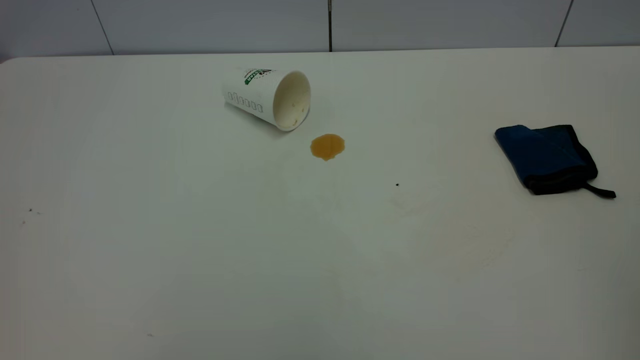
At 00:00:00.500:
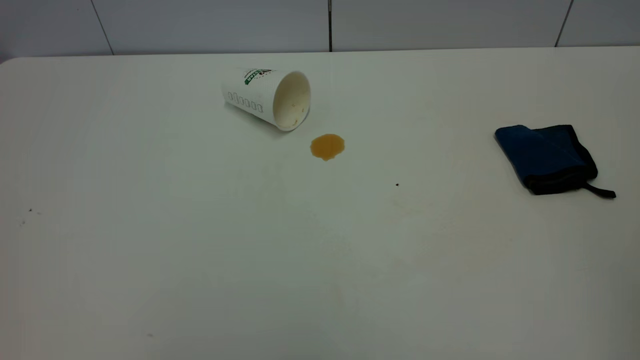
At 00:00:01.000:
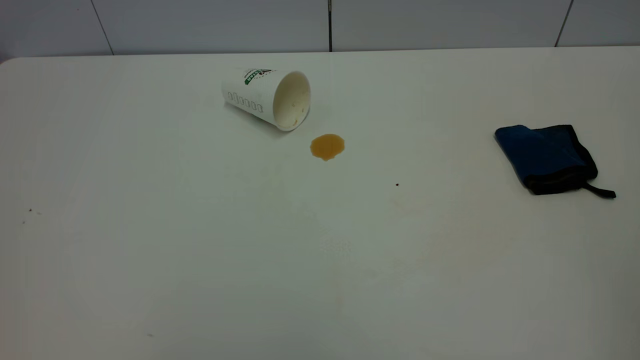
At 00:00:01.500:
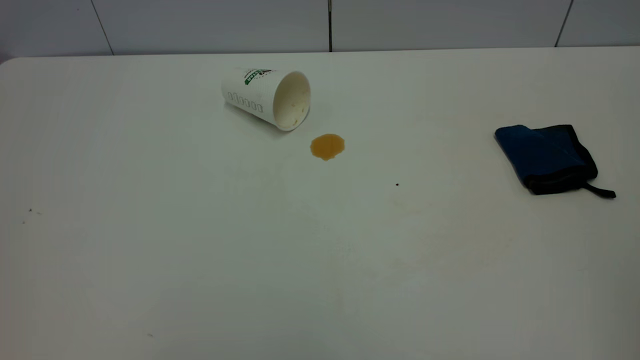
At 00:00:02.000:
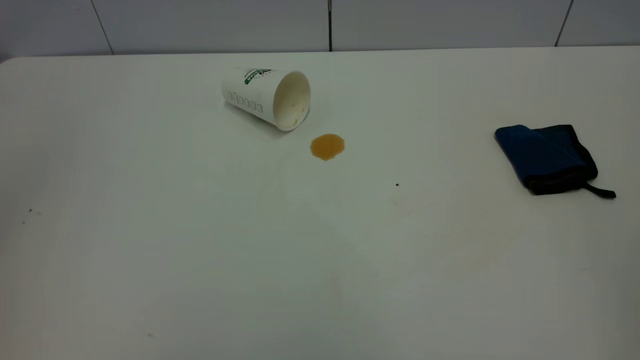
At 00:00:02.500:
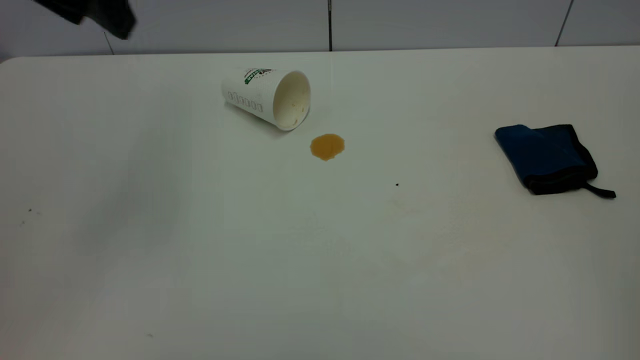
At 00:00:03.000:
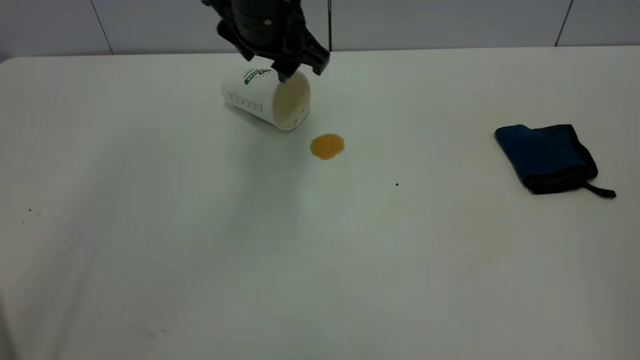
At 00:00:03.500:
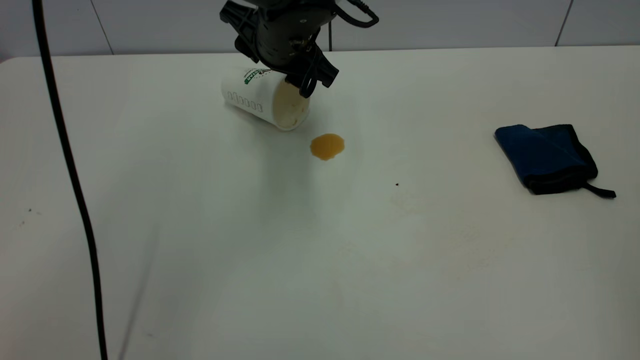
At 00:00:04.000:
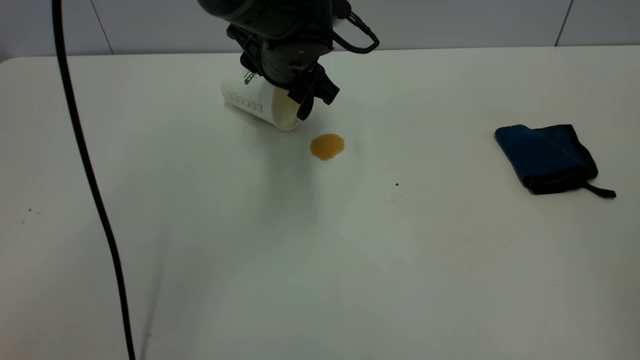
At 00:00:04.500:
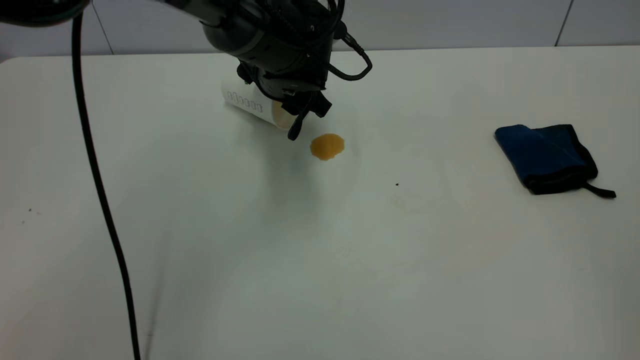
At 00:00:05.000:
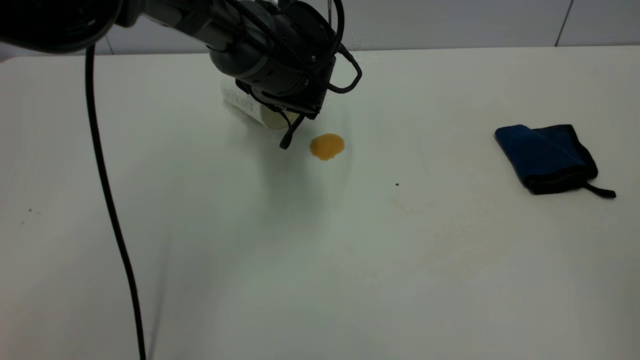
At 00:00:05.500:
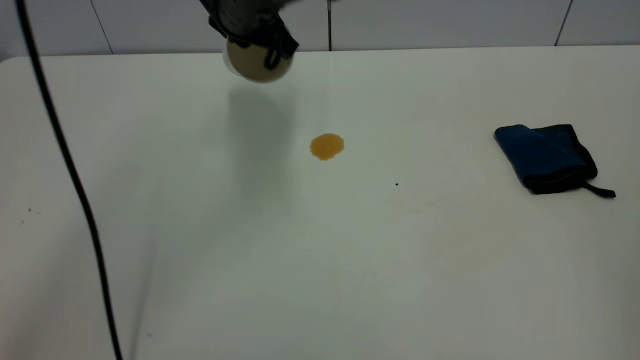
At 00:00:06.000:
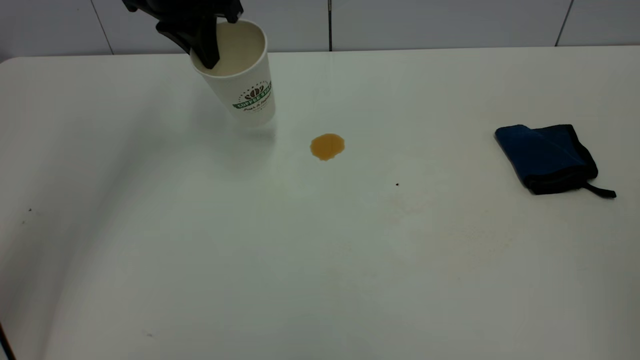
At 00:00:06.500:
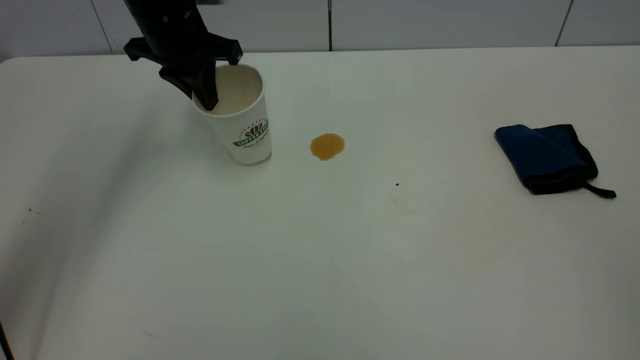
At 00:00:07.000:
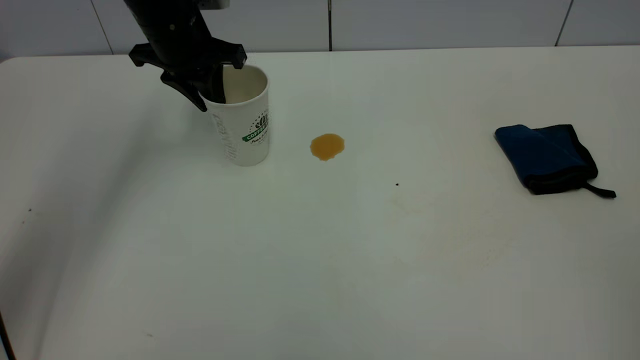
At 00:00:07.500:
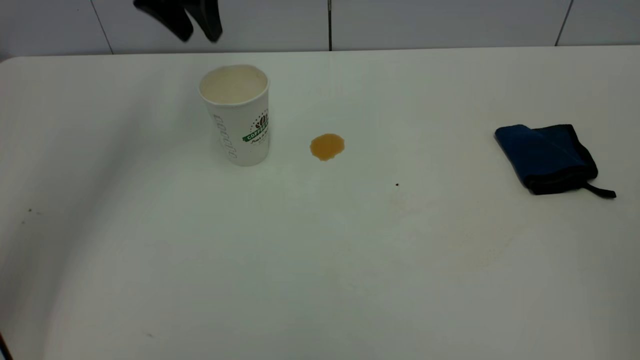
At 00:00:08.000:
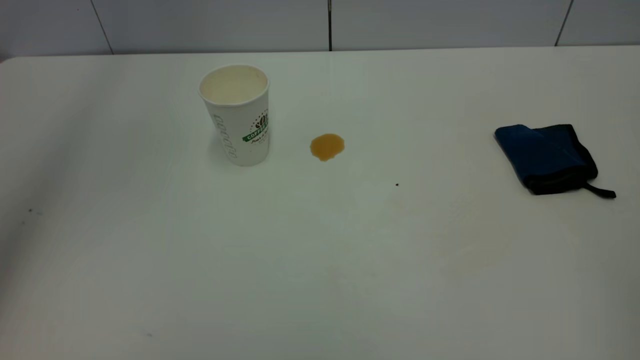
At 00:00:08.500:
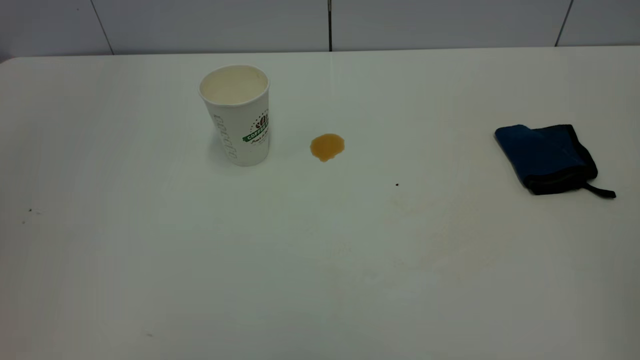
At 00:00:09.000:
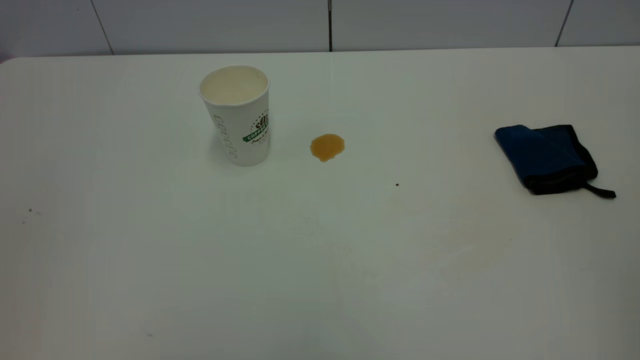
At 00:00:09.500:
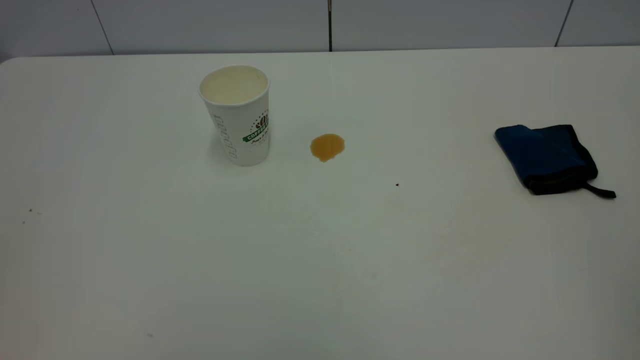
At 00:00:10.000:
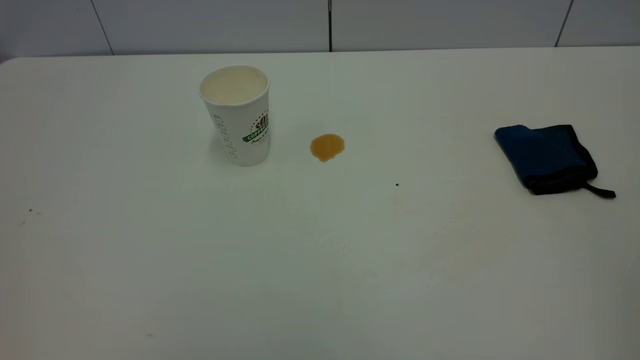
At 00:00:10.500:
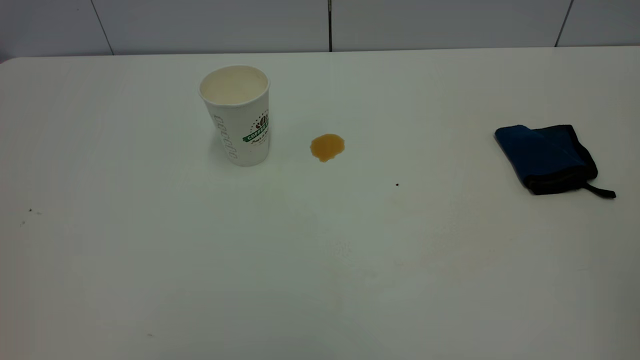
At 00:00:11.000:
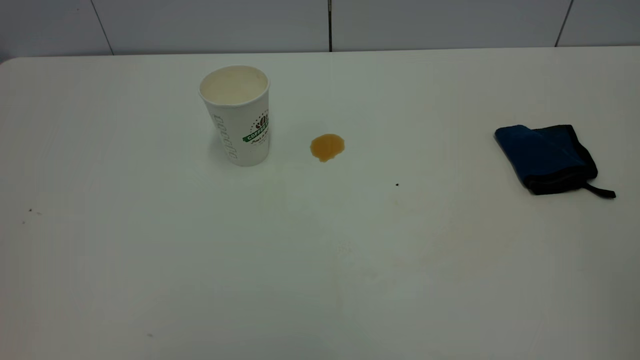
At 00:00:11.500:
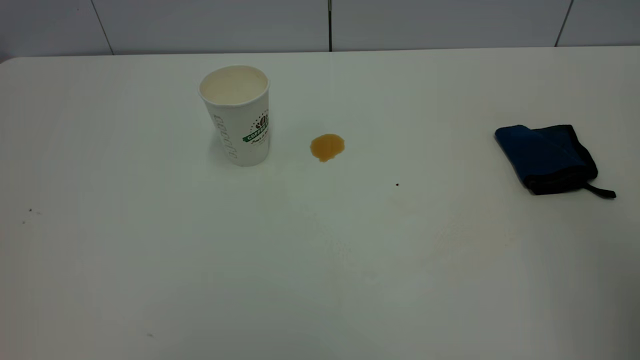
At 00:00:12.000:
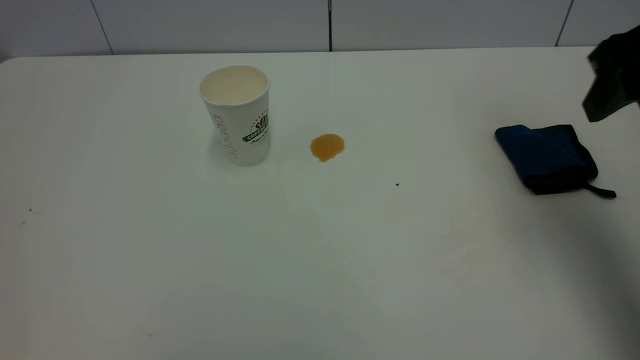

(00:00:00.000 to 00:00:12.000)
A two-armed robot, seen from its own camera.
Task of the whole recording: the left gripper pick up the fallen cup and place it upright, the right gripper grasp the blue rag and wipe the tea stain on the table, the right gripper put the blue rag back in its original position.
Step, 00:00:00.000 - 00:00:07.000: Stand the paper cup upright.
00:00:02.000 - 00:00:04.000: The left gripper shifts approximately 50 cm forward, to the right and downward.
00:00:04.000 - 00:00:06.000: The left gripper heads to the left and upward, covering roughly 15 cm, and closes up.
00:00:06.000 - 00:00:08.000: The left gripper goes some 30 cm upward and backward, and opens its fingers.
00:00:08.000 - 00:00:10.000: The left gripper goes some 35 cm backward.
00:00:10.000 - 00:00:12.000: The right gripper moves forward, approximately 30 cm, and opens.

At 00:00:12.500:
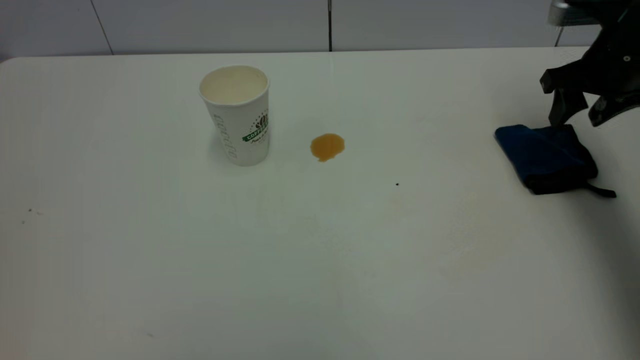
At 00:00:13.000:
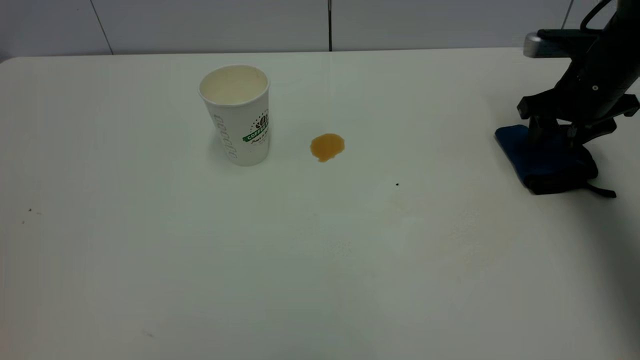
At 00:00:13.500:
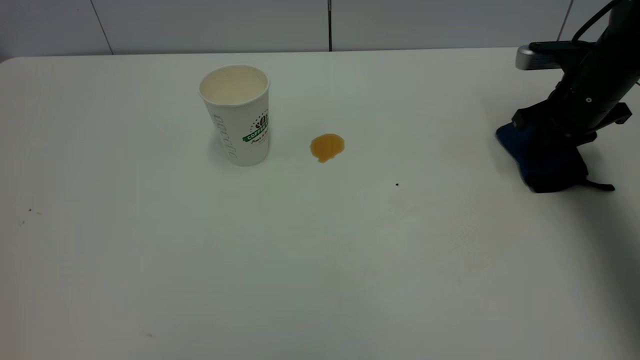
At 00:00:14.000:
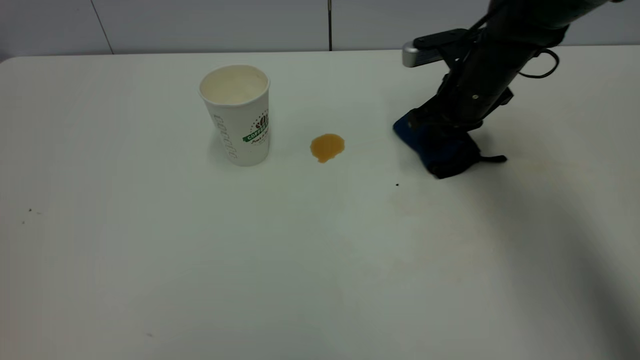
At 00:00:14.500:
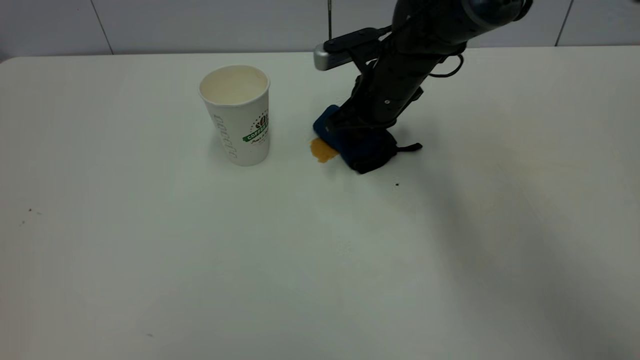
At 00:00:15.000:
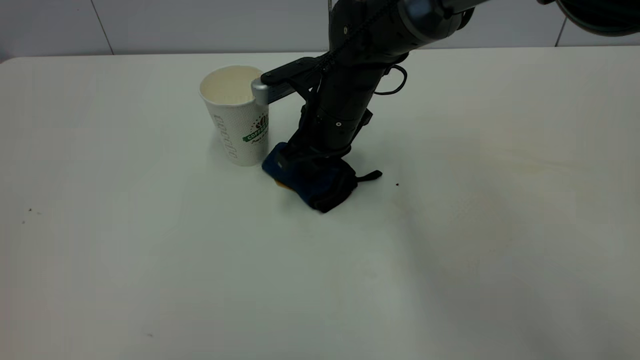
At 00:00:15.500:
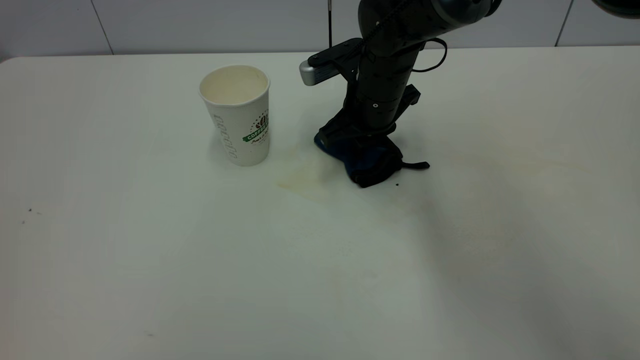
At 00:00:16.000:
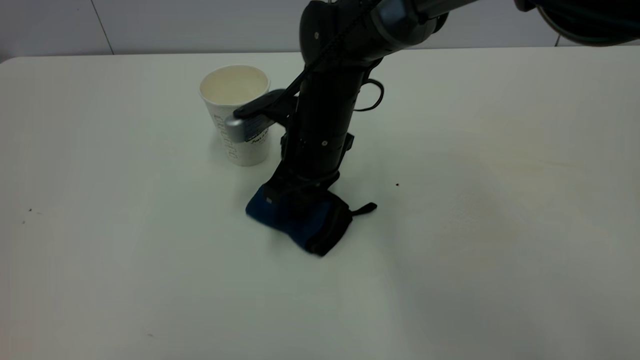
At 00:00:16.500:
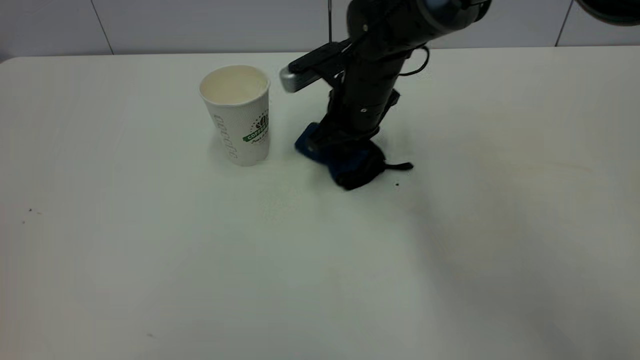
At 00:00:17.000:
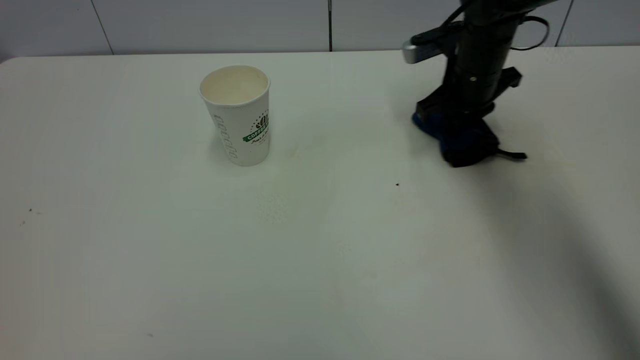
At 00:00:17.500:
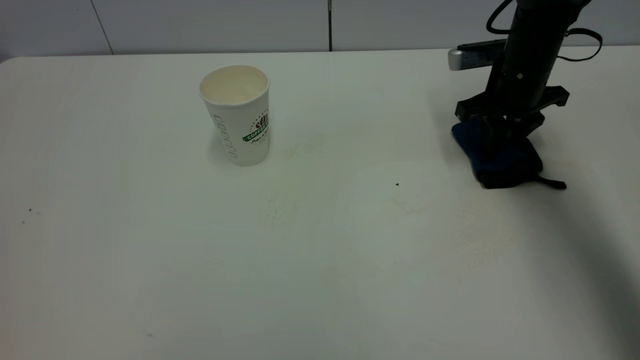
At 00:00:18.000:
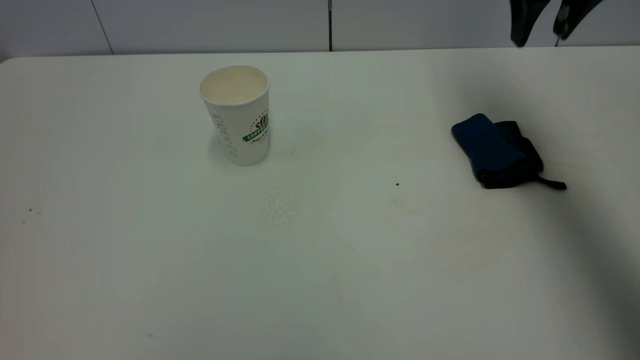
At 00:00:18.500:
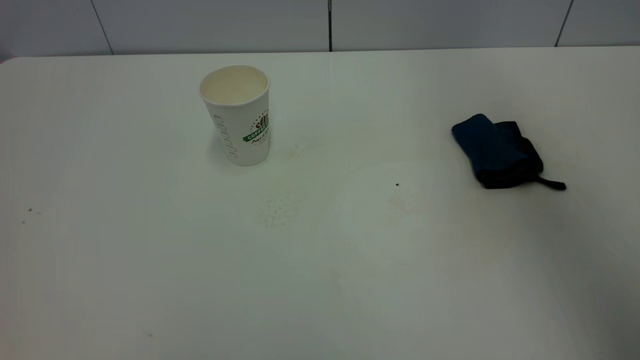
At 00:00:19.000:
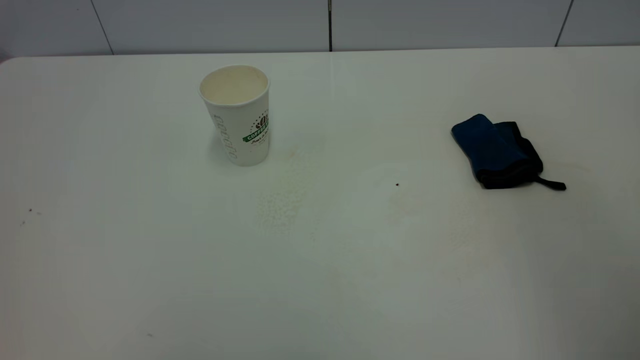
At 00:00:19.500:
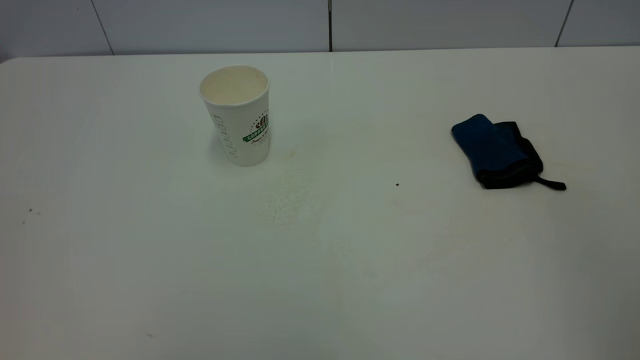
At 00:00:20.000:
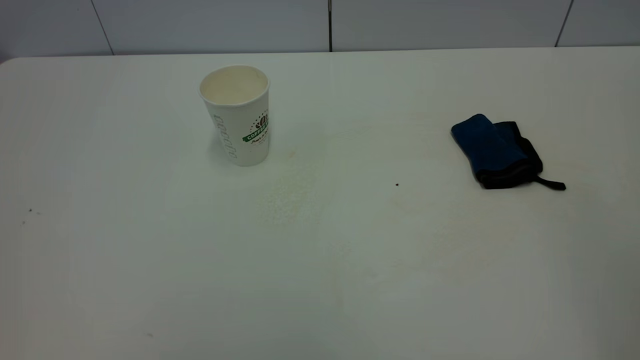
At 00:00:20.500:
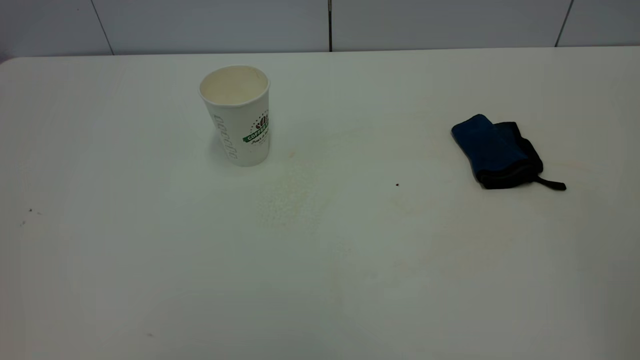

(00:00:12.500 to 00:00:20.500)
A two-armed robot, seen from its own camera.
Task of the whole recording: the left gripper pick up the fallen cup and place it upright, the right gripper grasp the blue rag and wipe the tea stain on the table, the right gripper put the blue rag back in its original position.
Step, 00:00:12.500 - 00:00:17.500: Wipe the stains off the table with a rag.
00:00:12.500 - 00:00:14.500: The right gripper heads to the left, covering about 25 cm, and closes up.
00:00:14.500 - 00:00:16.500: The right gripper swings left and right, about 10 cm each way, with 3 reversals.
00:00:16.500 - 00:00:18.500: The right gripper moves upward and to the right, roughly 40 cm, and opens up.
00:00:18.500 - 00:00:20.500: The right gripper travels backward by some 35 cm.
